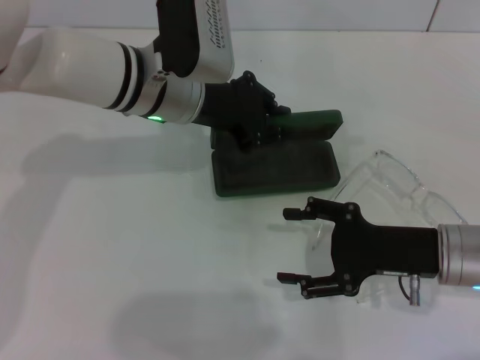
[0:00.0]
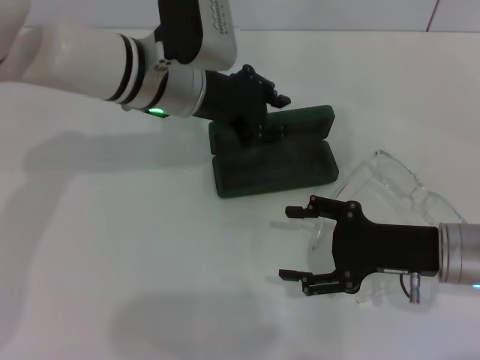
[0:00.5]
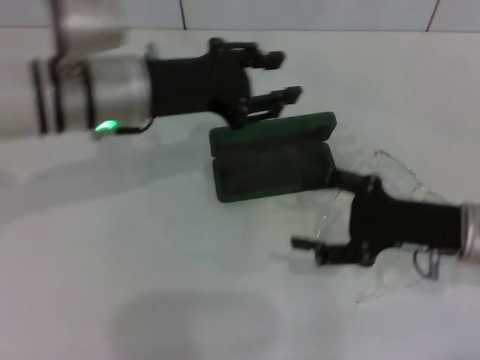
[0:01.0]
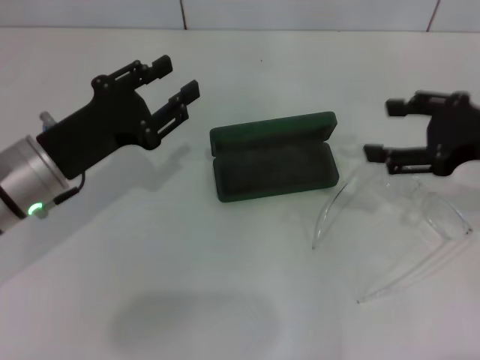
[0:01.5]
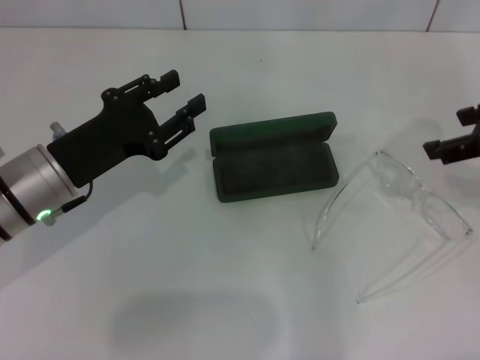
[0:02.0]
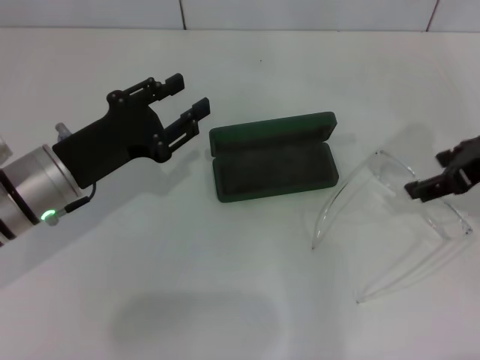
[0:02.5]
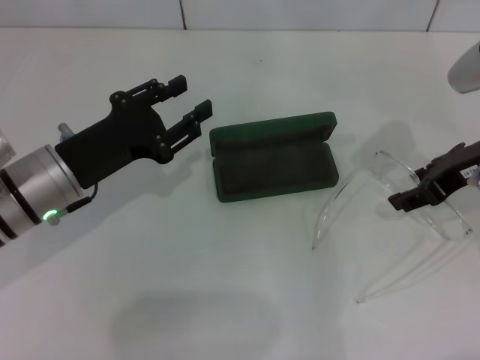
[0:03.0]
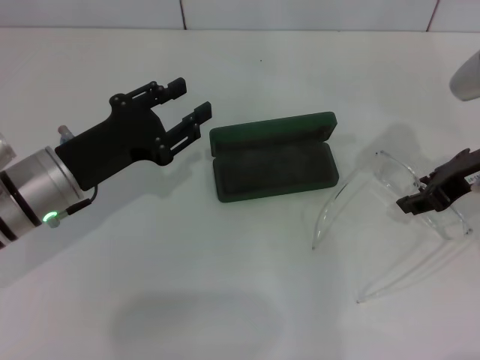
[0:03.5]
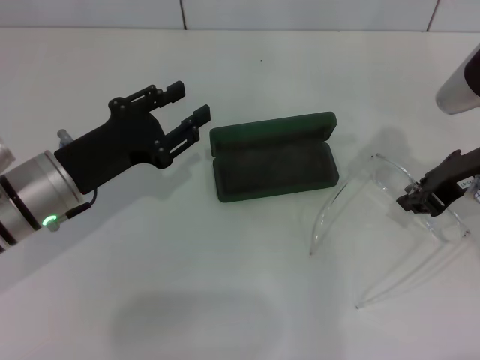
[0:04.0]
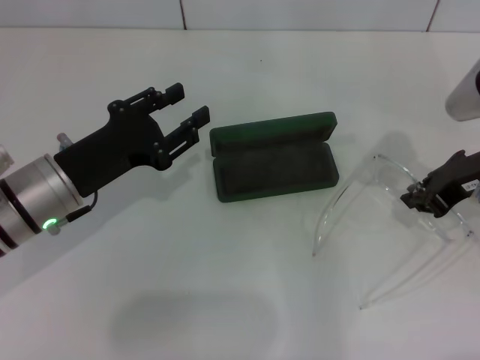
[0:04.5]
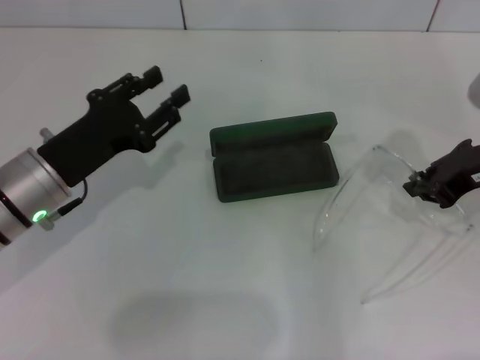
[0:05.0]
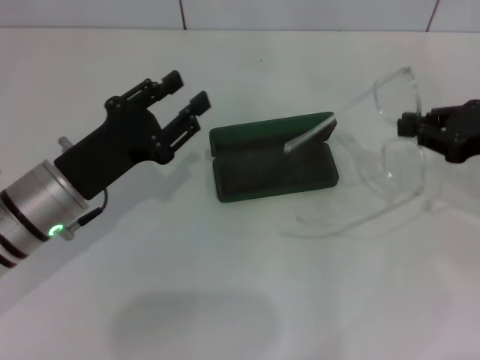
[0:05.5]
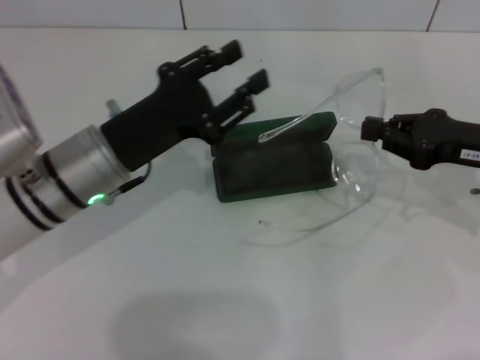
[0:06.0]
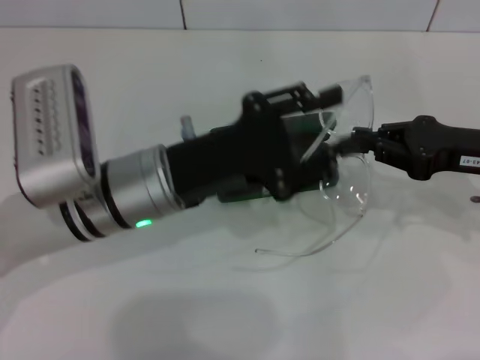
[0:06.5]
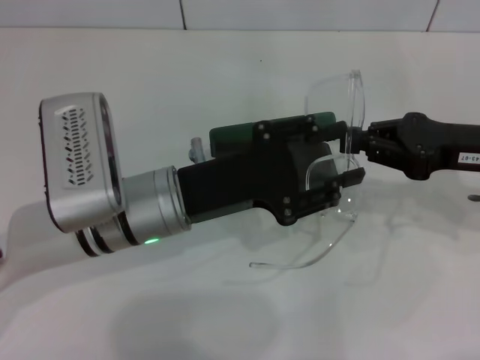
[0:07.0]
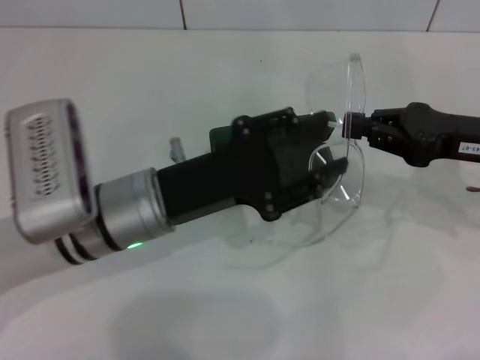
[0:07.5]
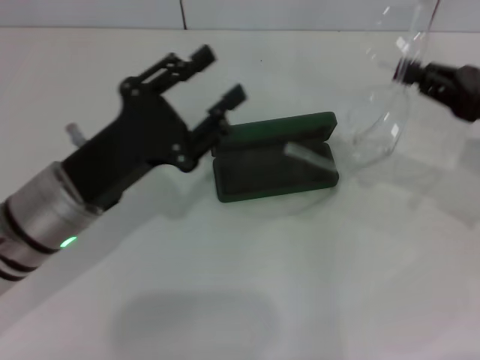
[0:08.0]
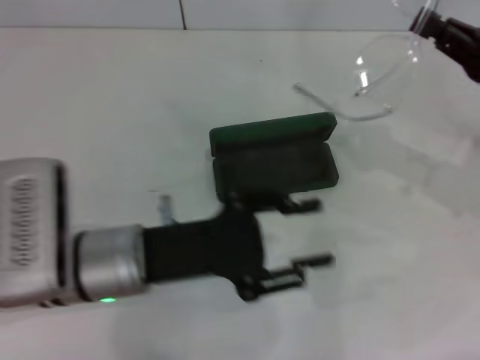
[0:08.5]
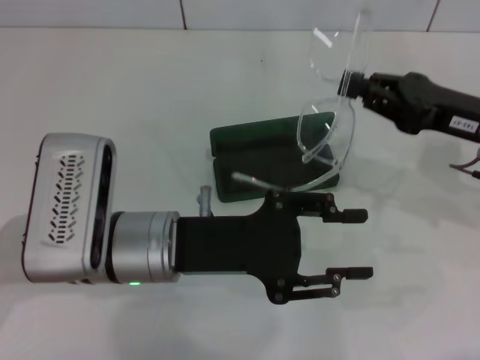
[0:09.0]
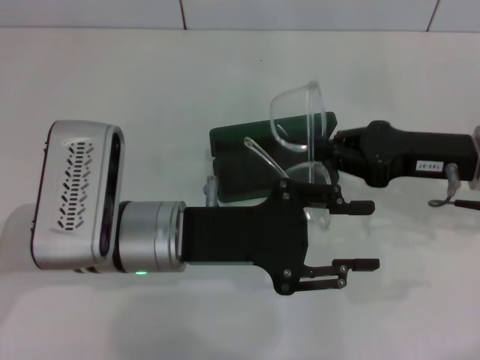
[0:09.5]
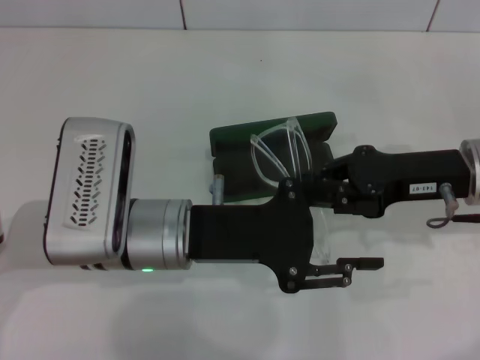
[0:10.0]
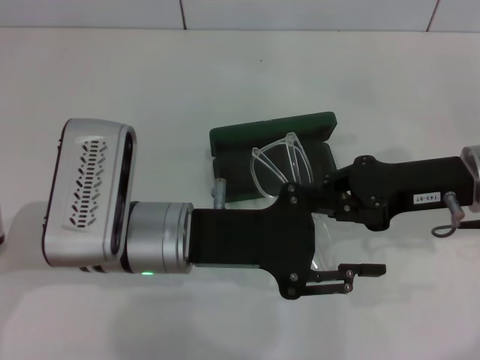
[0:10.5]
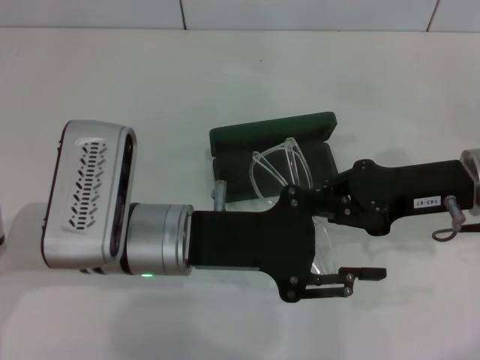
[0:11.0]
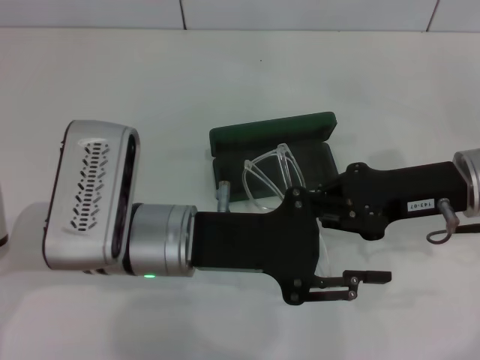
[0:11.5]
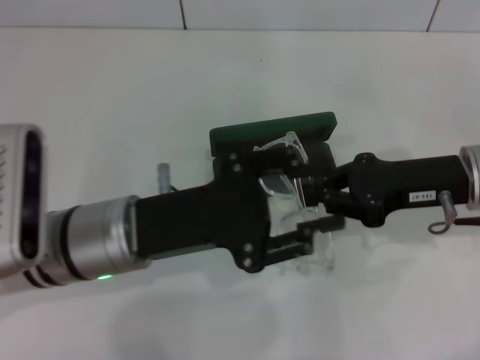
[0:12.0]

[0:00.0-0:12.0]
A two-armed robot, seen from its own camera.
Step, 0:01.5 to 0:04.0: Grab the eyeglass frame with your right hand.
Step, 0:04.5 to 0:10.0: Fold the frame with your left hand.
0:00.0 to 0:02.0: The left gripper heads to the left, backward and downward, covering some 15 cm, and opens up, while the right gripper moves upward, approximately 15 cm.
0:02.0 to 0:04.0: The right gripper goes approximately 5 cm downward, and closes.
0:04.0 to 0:06.0: The right gripper moves roughly 5 cm.
0:08.0 to 0:10.0: The left gripper shifts roughly 5 cm to the right. The right gripper goes about 10 cm to the left.
0:10.0 to 0:12.0: There are only small adjustments of the grippers.

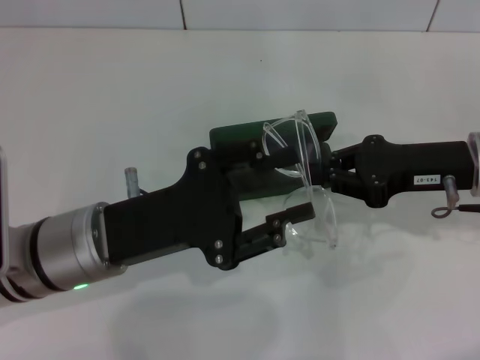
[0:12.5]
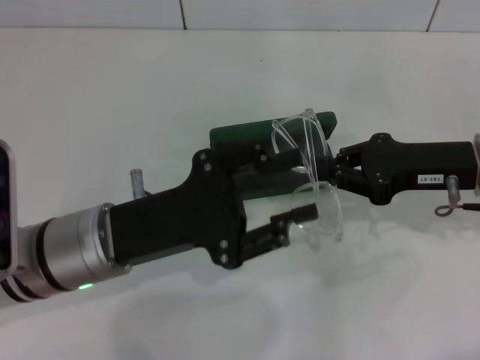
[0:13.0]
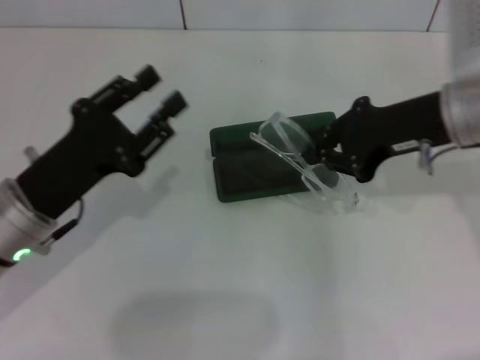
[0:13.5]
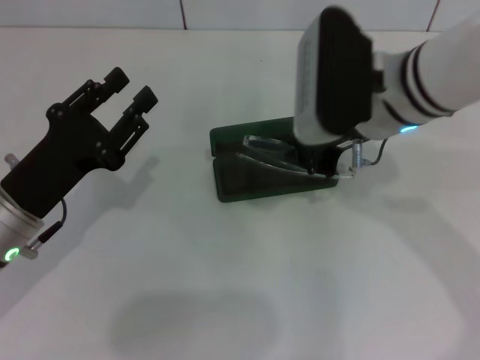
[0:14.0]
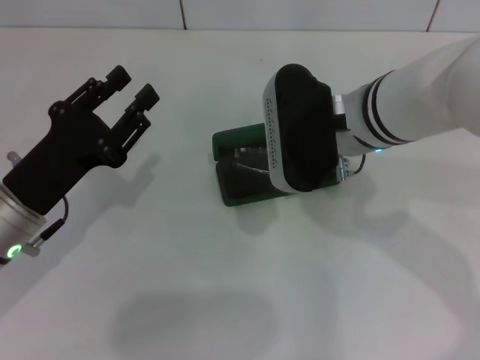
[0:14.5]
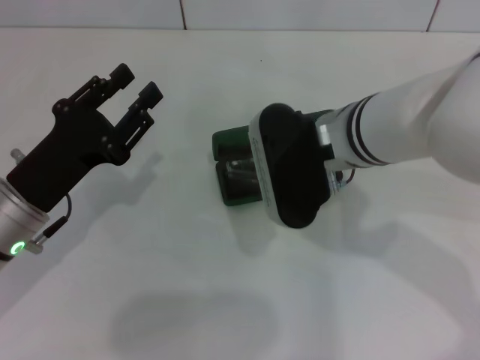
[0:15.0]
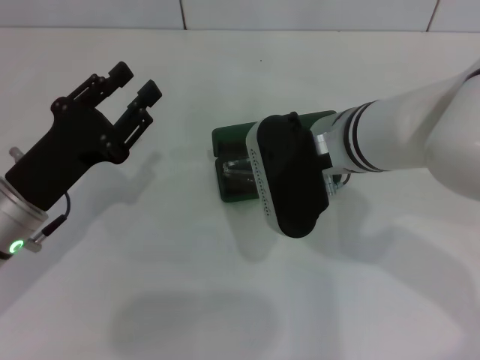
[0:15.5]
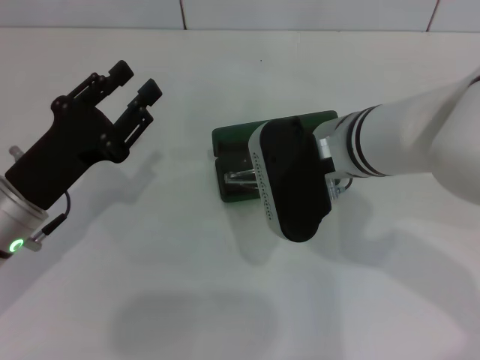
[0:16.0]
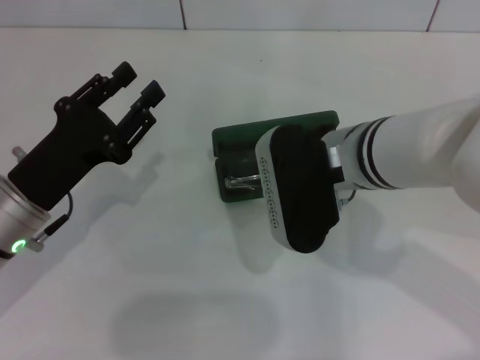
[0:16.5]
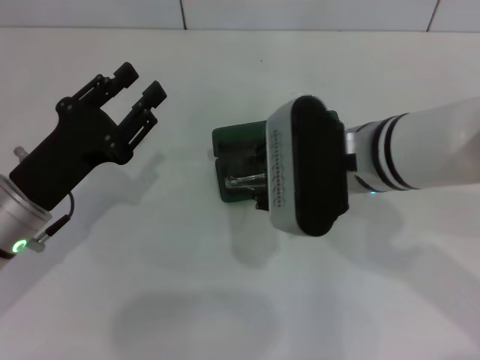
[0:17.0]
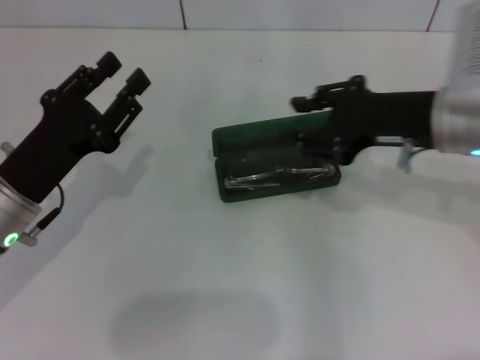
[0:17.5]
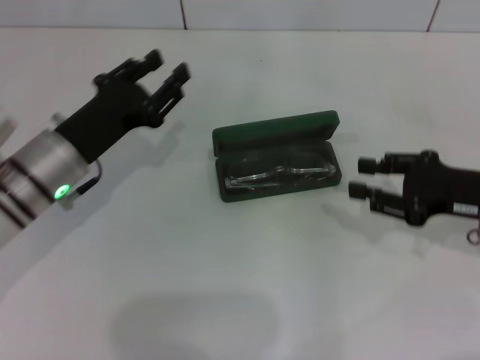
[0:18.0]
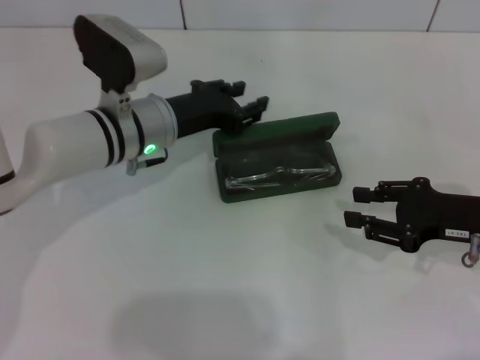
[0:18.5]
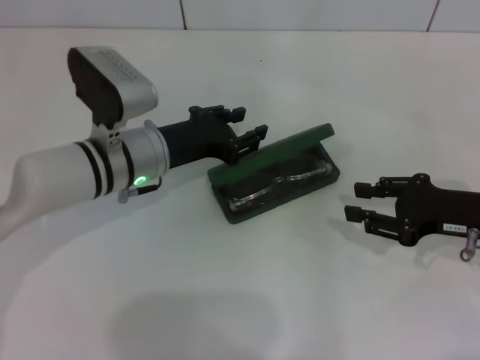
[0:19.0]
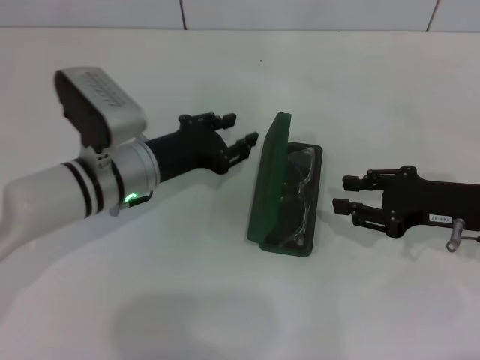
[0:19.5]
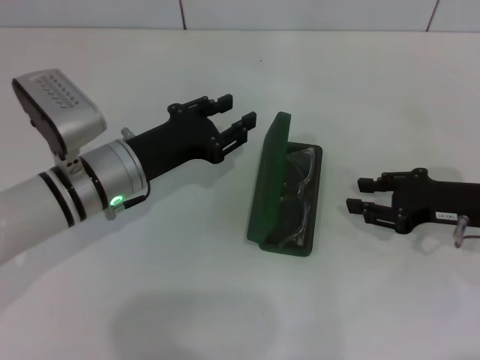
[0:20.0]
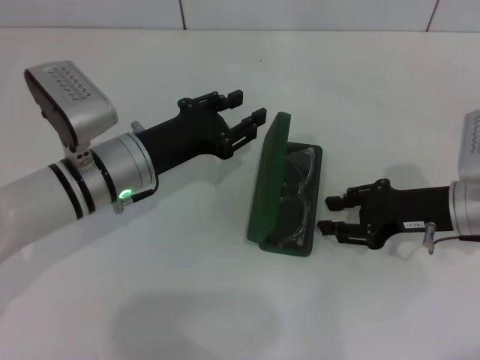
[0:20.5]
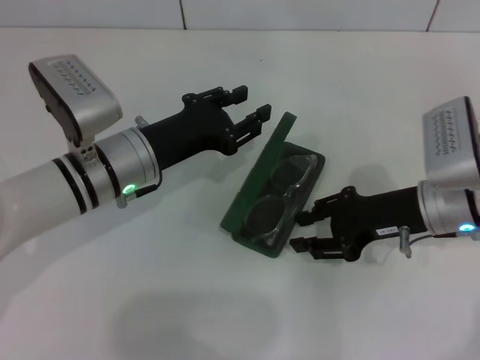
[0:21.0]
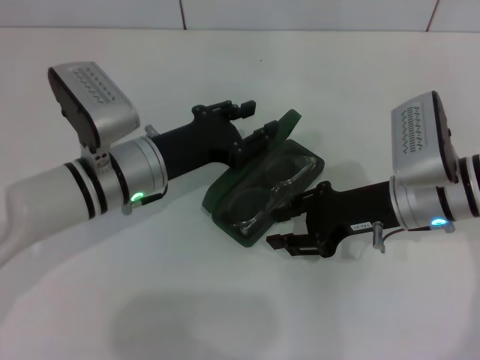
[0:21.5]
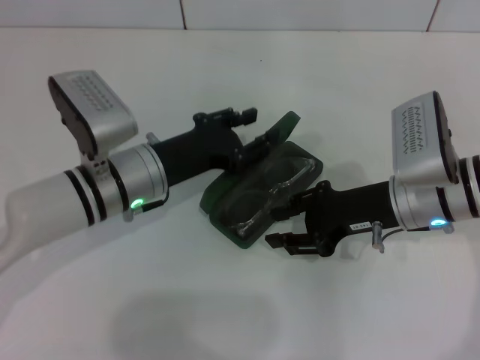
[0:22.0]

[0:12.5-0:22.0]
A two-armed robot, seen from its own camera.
Step, 0:12.5 to 0:17.0: Put the glasses into the case with your right hand.
0:12.5 to 0:14.5: The right gripper is displaced to the left by approximately 15 cm, while the left gripper travels to the left by some 5 cm.
0:14.5 to 0:16.5: The right gripper opens.
0:16.5 to 0:18.0: The left gripper goes approximately 5 cm forward; the right gripper heads to the right, covering some 20 cm.
0:20.0 to 0:22.0: The right gripper is displaced to the left by approximately 10 cm.

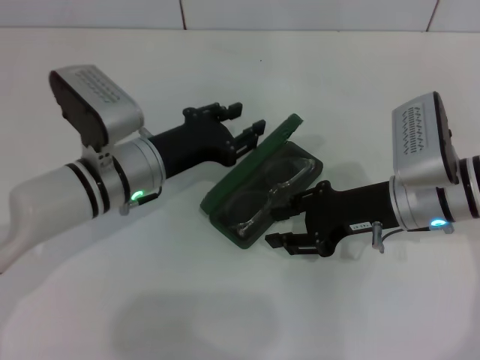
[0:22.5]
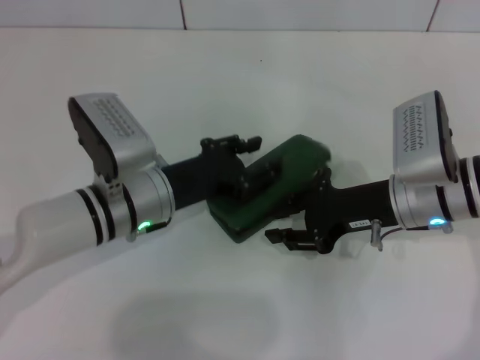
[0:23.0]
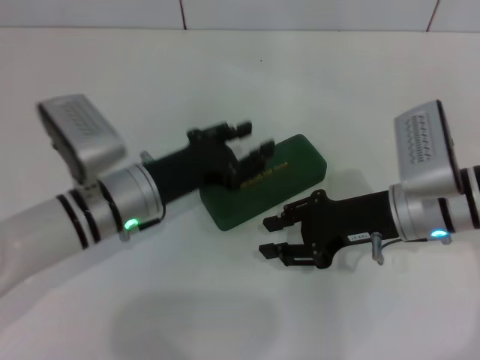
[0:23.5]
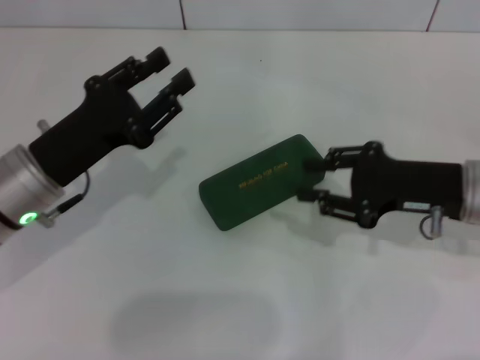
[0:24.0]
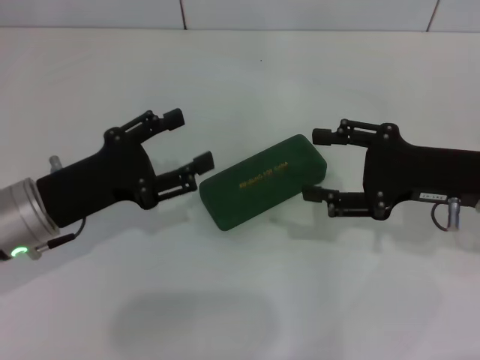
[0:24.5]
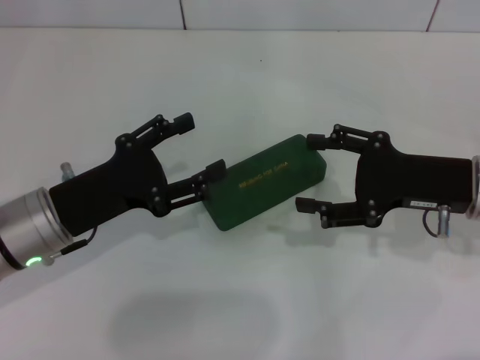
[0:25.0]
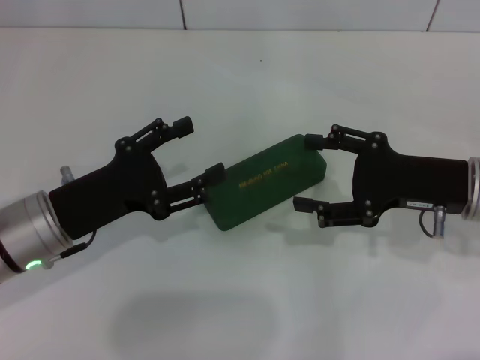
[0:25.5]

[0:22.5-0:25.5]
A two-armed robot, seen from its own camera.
0:22.5 to 0:24.0: The left gripper goes some 10 cm to the left and backward, while the right gripper shifts roughly 5 cm to the right.
0:24.0 to 0:25.5: The right gripper opens, while the left gripper opens its fingers.
